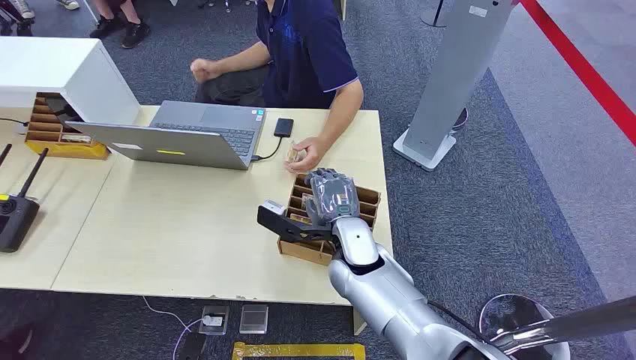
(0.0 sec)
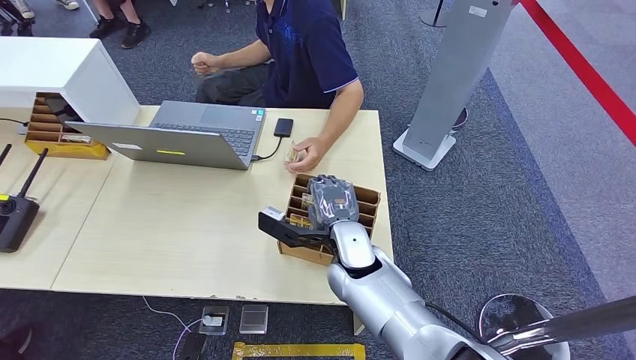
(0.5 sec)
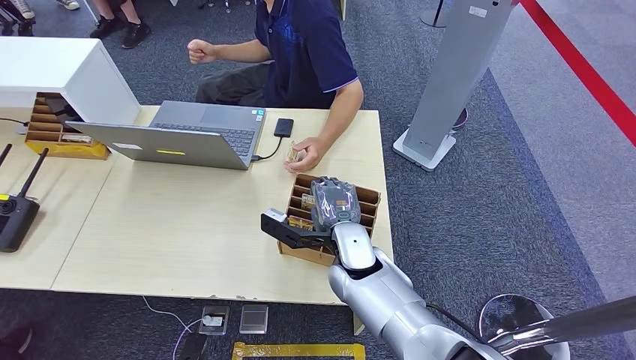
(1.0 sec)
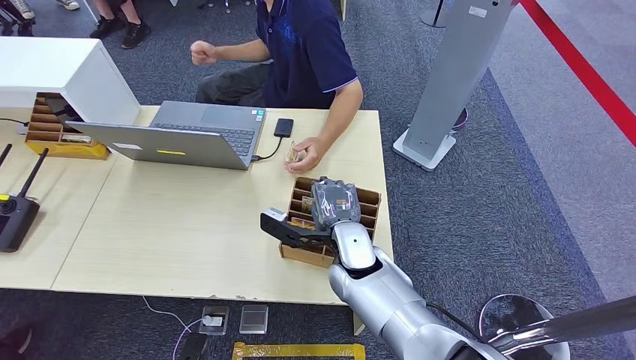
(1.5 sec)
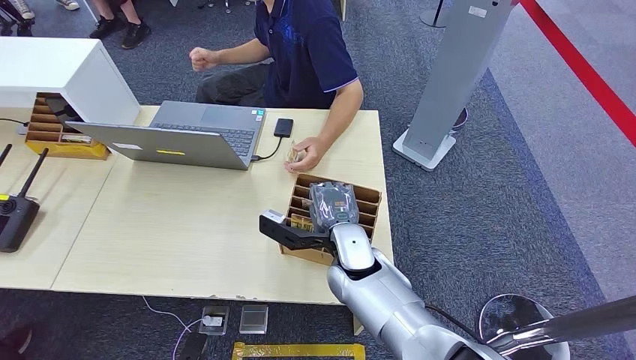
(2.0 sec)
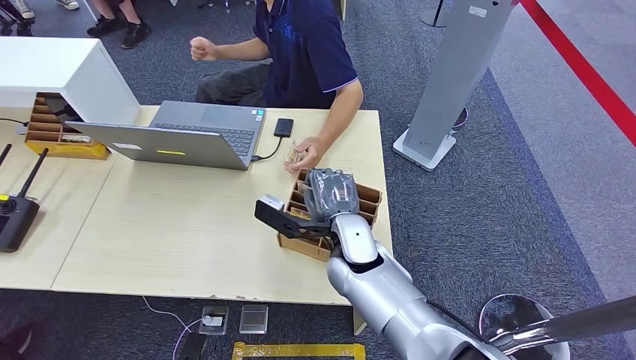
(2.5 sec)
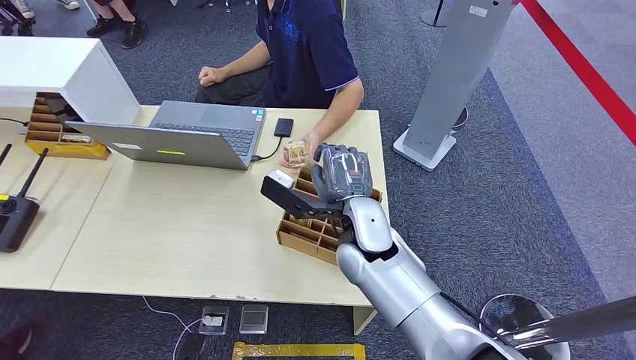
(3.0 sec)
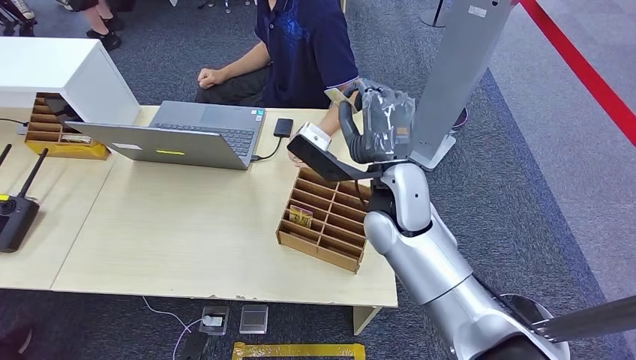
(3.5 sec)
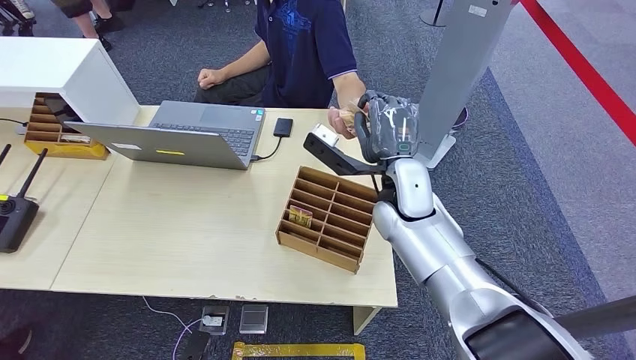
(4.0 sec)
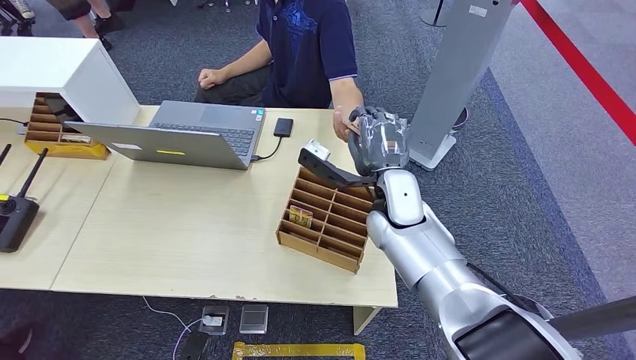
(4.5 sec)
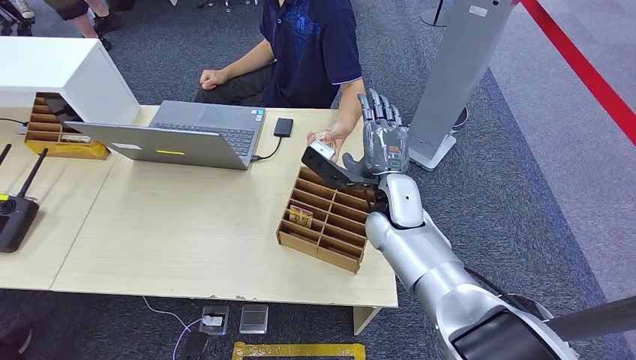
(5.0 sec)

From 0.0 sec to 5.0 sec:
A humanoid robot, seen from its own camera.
Task of the whole recording: Pick up the card and hand it over to the target person.
Step, from 0.0 sec to 2.5 sec: Pick up the key card from the card box.
Step, from 4.0 sec to 5.0 sec: Hand the key card to the target.
From 2.5 sec to 5.0 sec: The right hand heads to the right, covering some 5 cm.

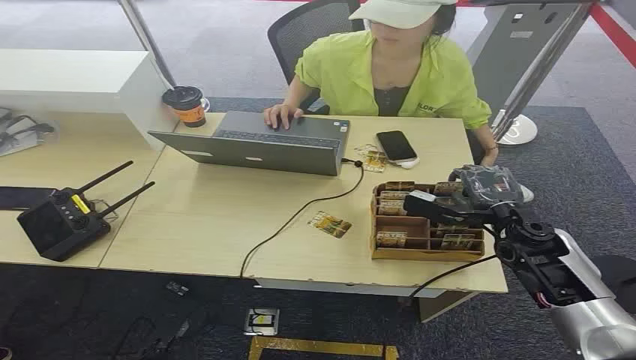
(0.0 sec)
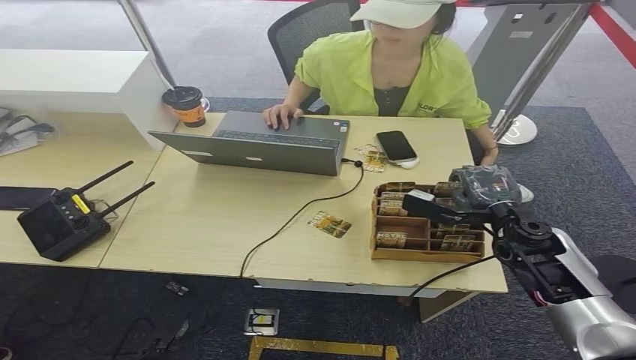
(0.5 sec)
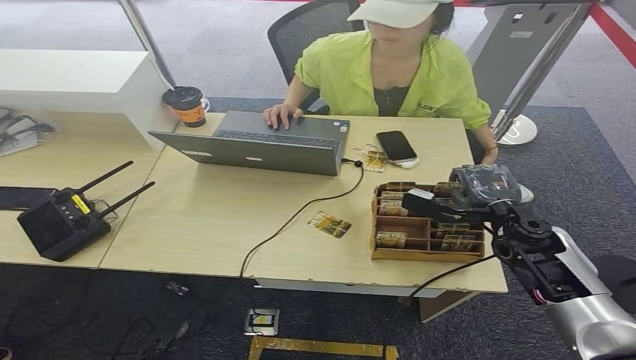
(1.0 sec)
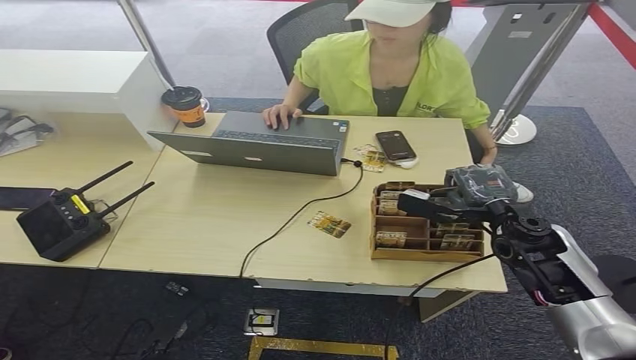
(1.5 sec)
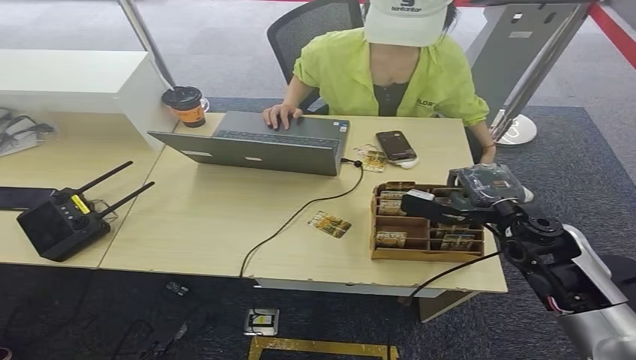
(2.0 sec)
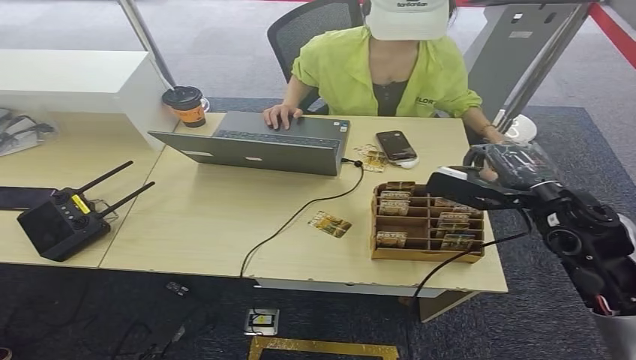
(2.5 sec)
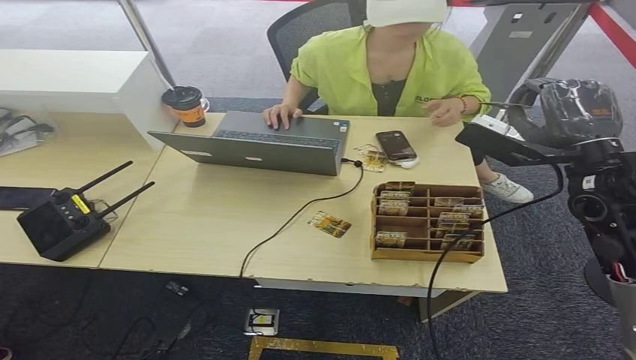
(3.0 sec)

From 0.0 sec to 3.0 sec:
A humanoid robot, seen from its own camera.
Task of the whole recording: Pick up the card and hand it over to the target person.
Step, from 0.0 sec to 2.0 sec: Pick up the key card from the card box.
Step, from 2.5 sec to 3.0 sec: Hand the key card to the target.
From 1.5 sec to 3.0 sec: The right hand moves upward and forward, approximately 10 cm.
